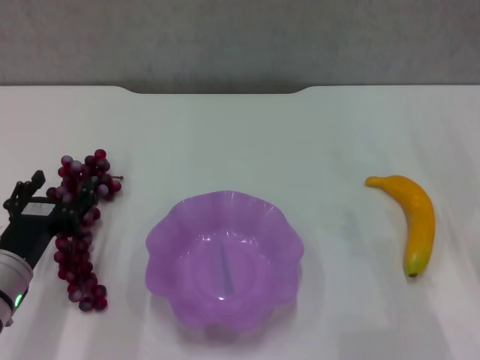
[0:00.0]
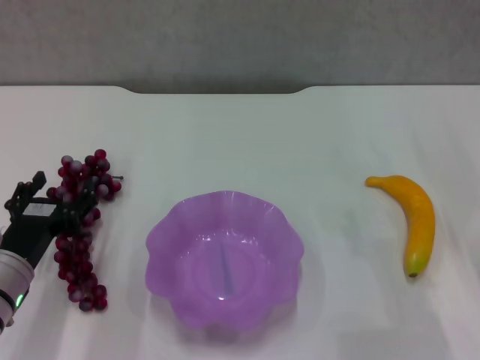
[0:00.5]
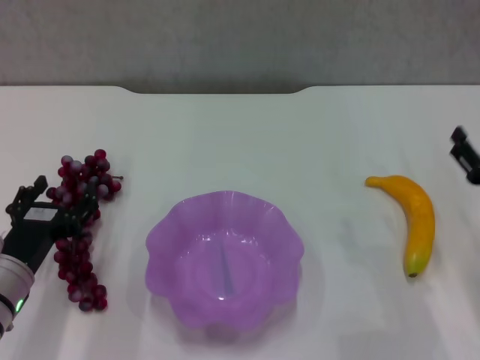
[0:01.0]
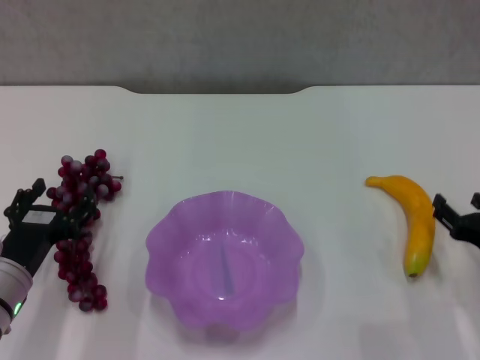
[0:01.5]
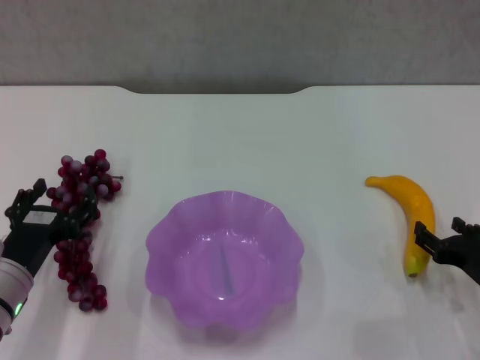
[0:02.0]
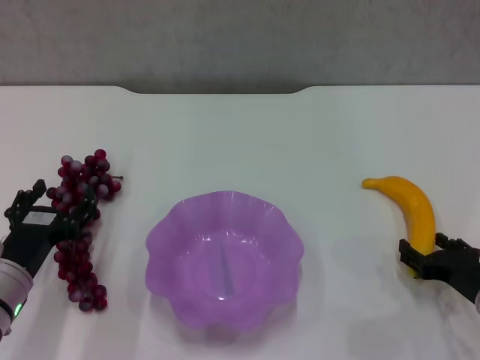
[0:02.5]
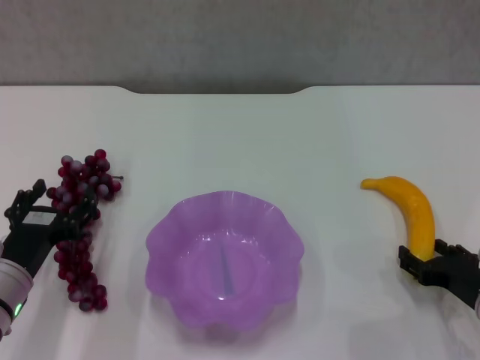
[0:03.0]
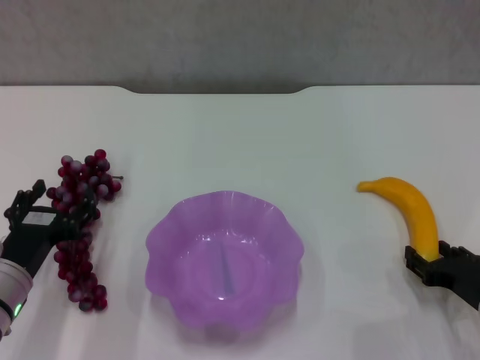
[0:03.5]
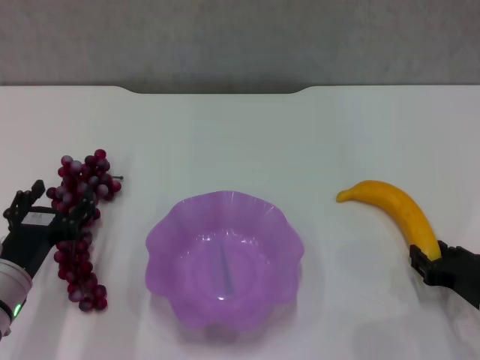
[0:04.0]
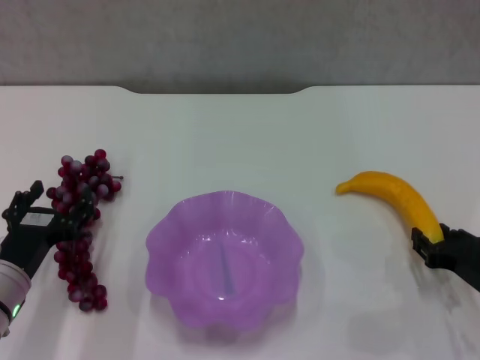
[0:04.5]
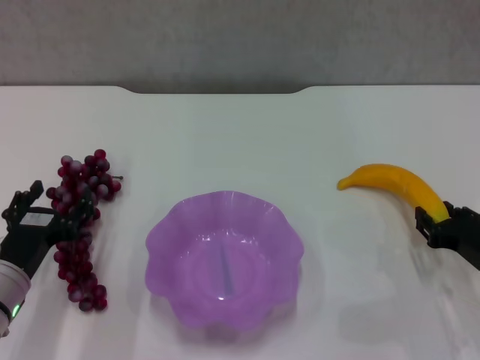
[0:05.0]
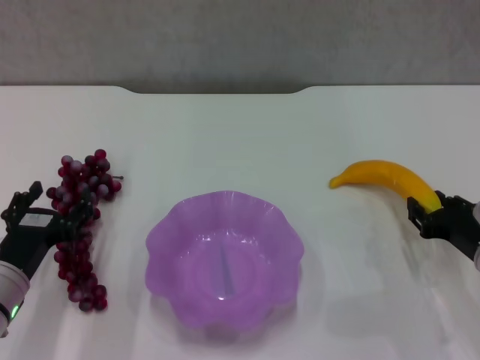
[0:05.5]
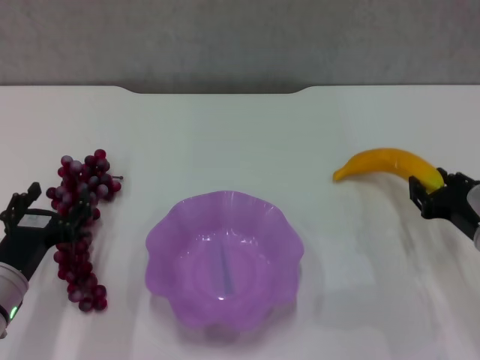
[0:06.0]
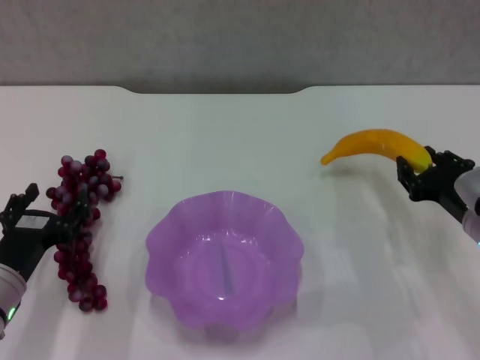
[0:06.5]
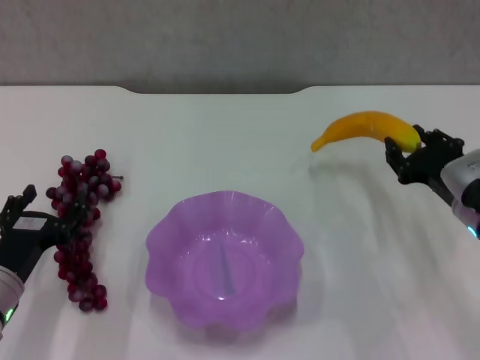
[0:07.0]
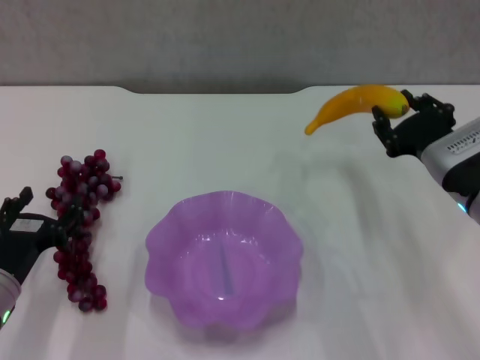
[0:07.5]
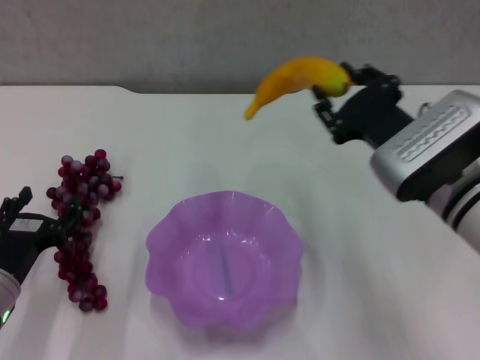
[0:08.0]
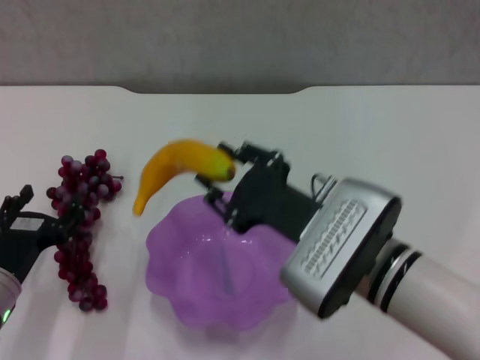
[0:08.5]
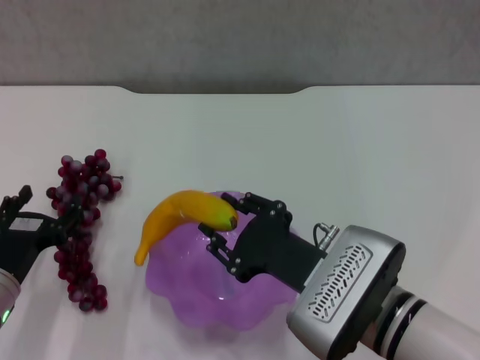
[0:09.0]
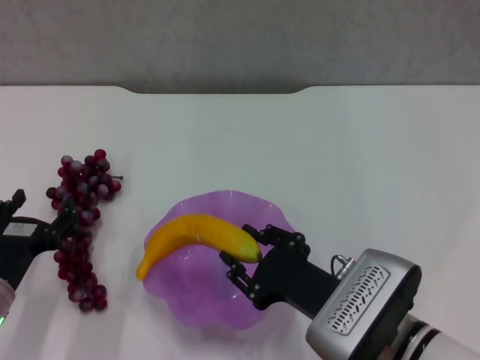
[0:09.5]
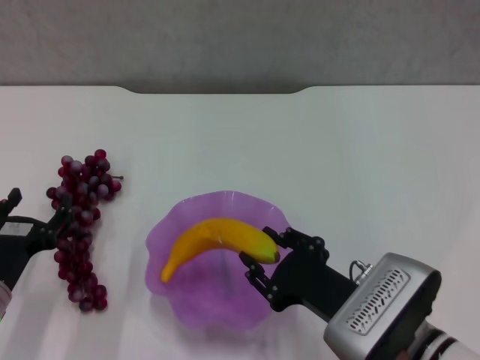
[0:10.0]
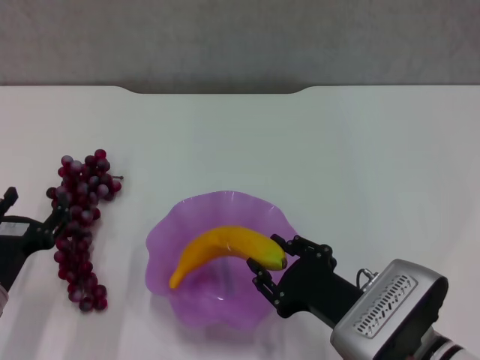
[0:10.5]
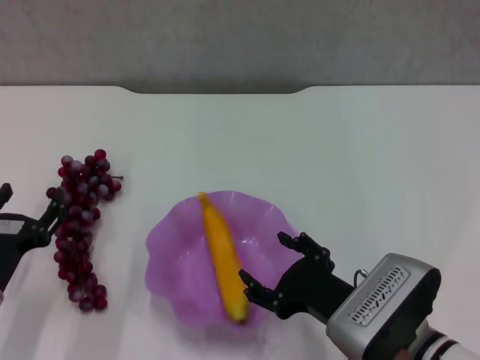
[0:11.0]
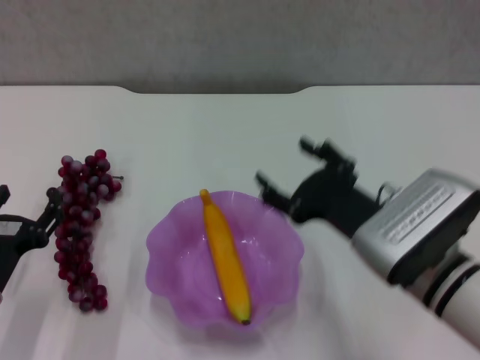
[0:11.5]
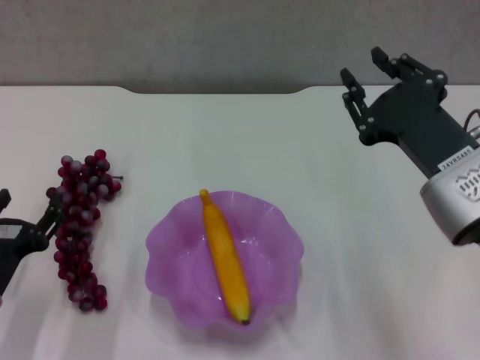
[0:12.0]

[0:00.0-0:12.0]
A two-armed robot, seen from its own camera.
Step, 0:00.0 to 0:03.5: Grasp the banana with right gripper.
Step, 0:04.0 to 0:11.0: Place the banana in the purple plate with right gripper.
0:00.0 to 0:02.0: The right gripper travels downward by approximately 5 cm.
0:02.0 to 0:04.0: There are only small adjustments of the grippers.
0:04.0 to 0:06.0: The right gripper heads forward, covering approximately 5 cm.
0:06.0 to 0:08.0: The right gripper shifts about 15 cm to the left and upward.
0:08.0 to 0:10.0: The right gripper travels backward and downward by approximately 15 cm.
0:10.0 to 0:12.0: The right gripper travels upward, to the right and forward by roughly 15 cm.

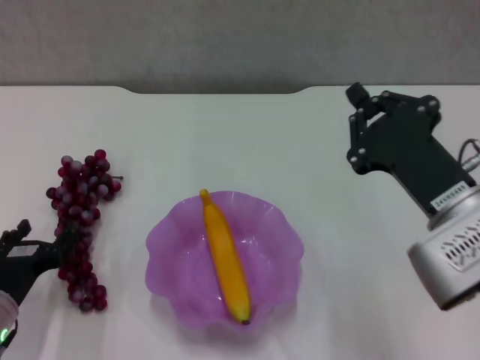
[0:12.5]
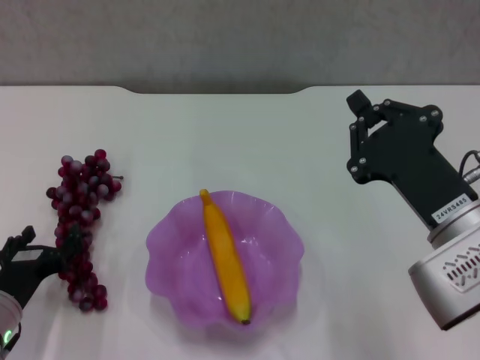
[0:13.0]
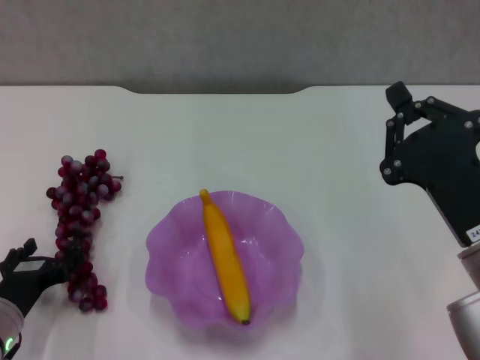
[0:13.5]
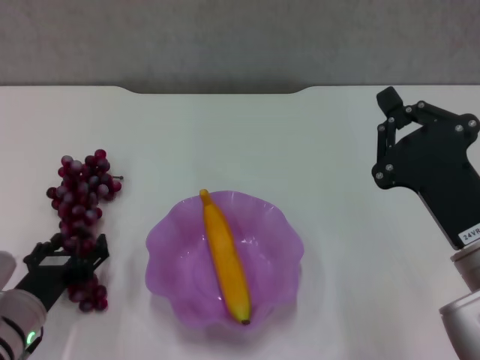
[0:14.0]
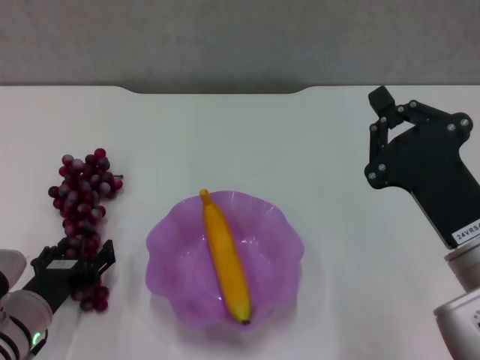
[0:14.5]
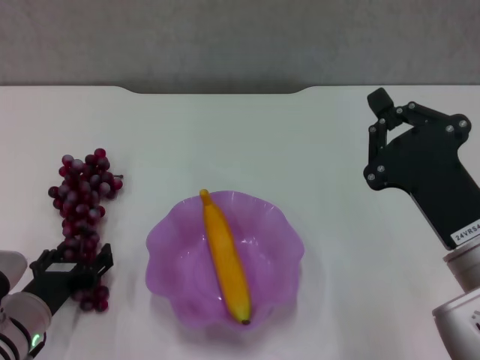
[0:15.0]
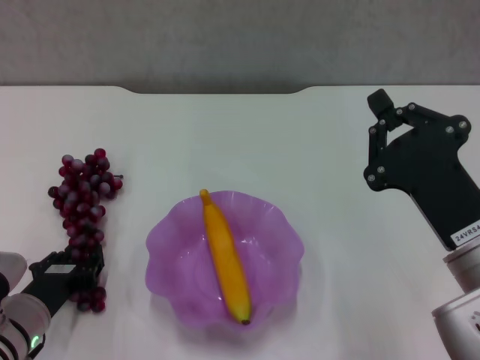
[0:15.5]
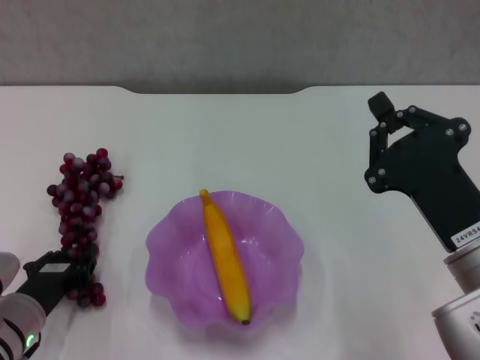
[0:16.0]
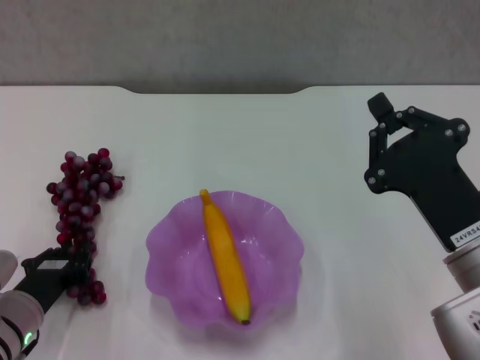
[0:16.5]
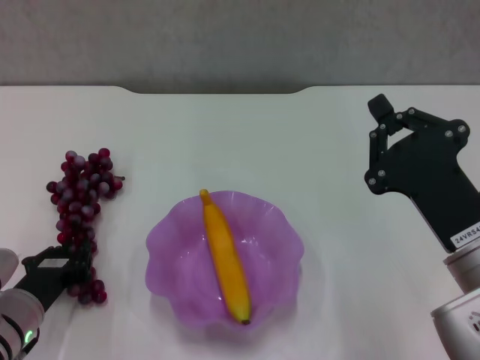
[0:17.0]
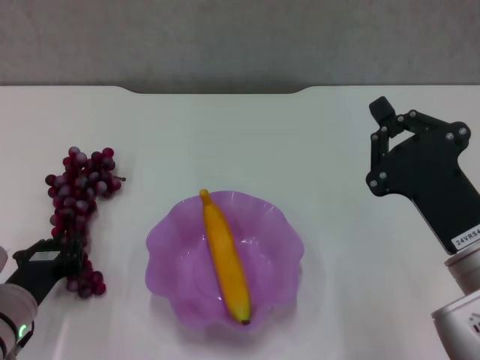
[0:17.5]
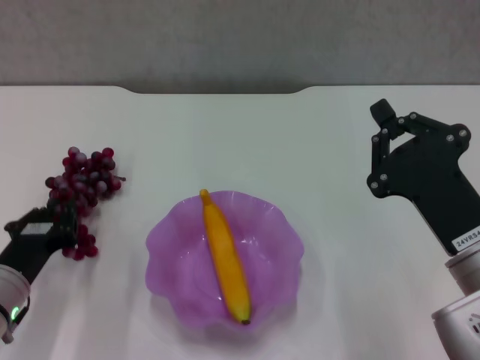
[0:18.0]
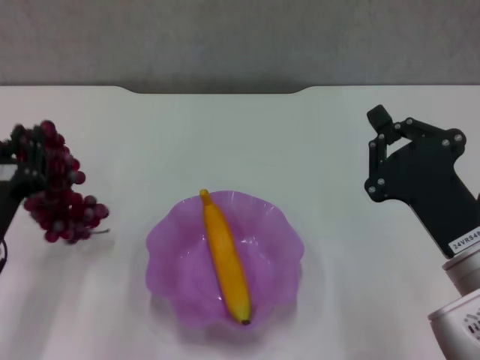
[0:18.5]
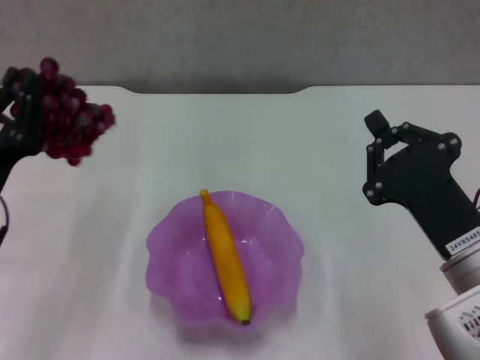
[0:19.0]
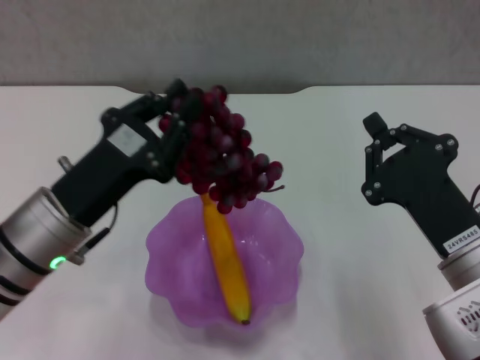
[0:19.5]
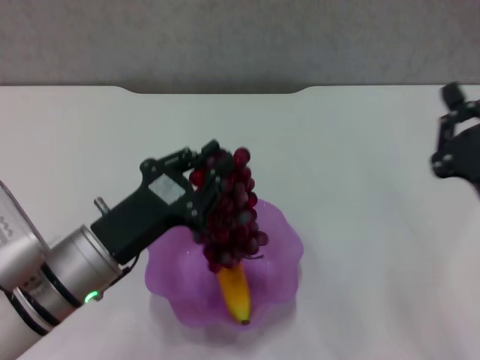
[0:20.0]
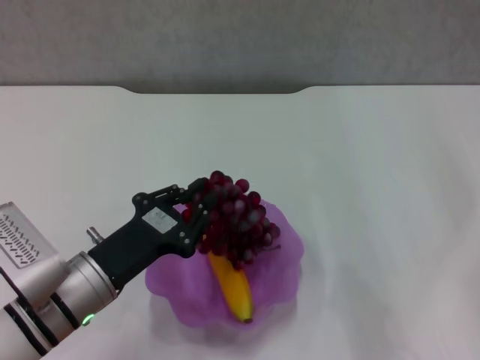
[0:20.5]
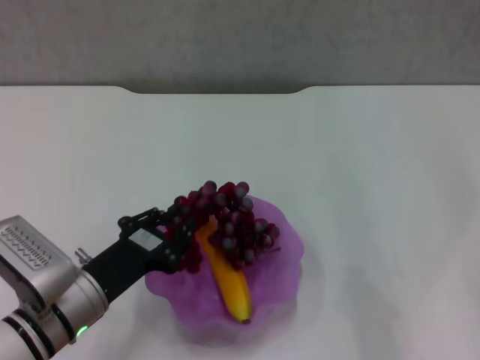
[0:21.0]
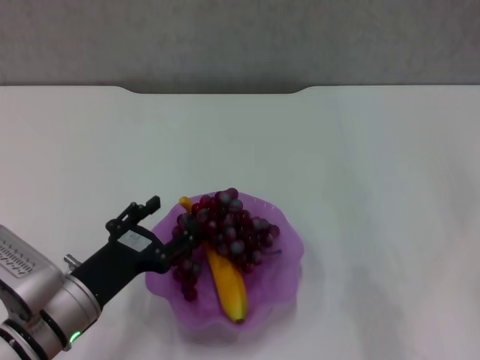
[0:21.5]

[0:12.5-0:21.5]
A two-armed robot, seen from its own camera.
Step, 0:12.5 to 0:17.0: Grasp the grape with left gripper.
Step, 0:17.5 to 0:21.5: Place the grape in the purple plate with left gripper.
0:12.5 to 0:14.5: There are only small adjustments of the grippers.
0:14.5 to 0:17.0: The left gripper closes.
0:17.0 to 0:19.5: The left gripper shifts roughly 15 cm upward and to the right.
0:19.5 to 0:21.5: The left gripper moves downward, approximately 10 cm, and opens its fingers, while the right gripper is displaced to the right by roughly 10 cm.

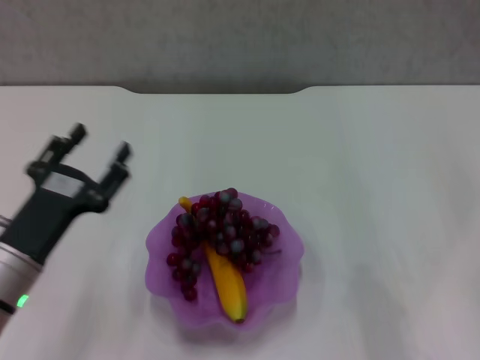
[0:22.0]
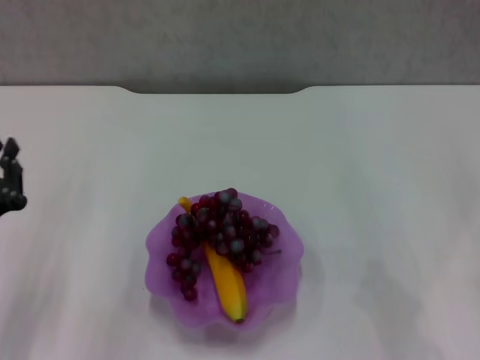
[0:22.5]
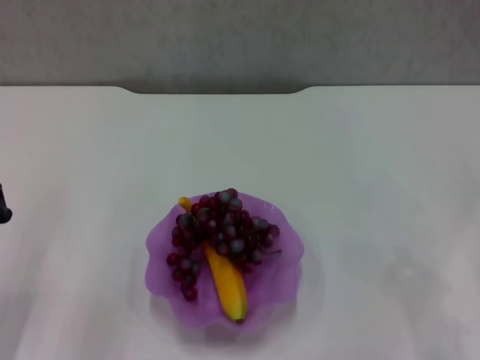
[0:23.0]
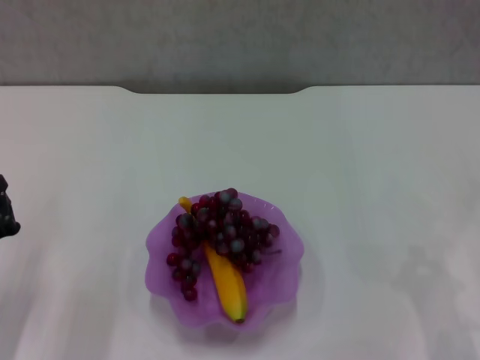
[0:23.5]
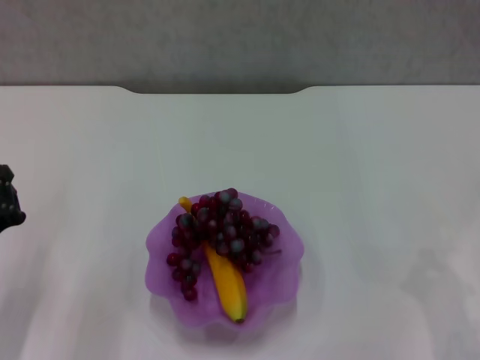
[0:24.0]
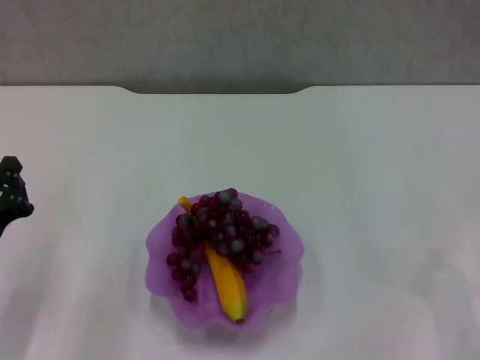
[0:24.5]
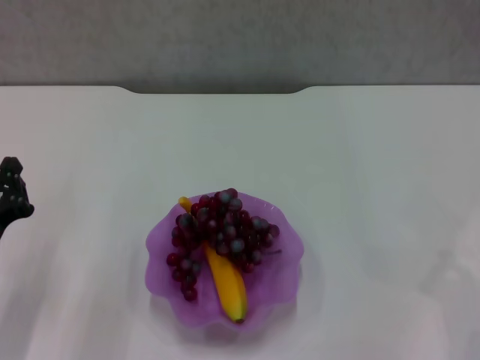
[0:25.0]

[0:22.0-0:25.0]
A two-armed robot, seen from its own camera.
0:22.0 to 0:23.5: The left gripper heads to the left, covering about 5 cm, and closes its fingers.
0:23.5 to 0:25.0: The grippers move only a little.

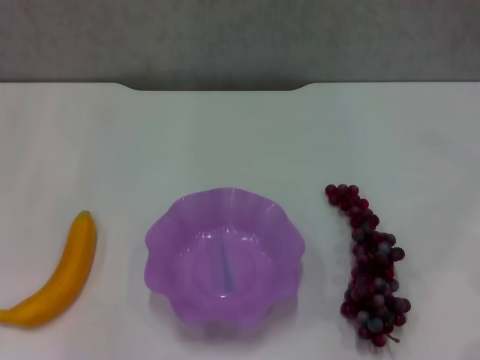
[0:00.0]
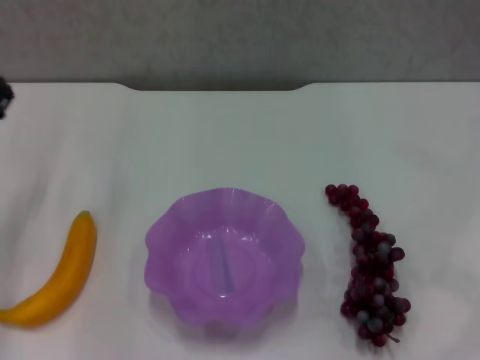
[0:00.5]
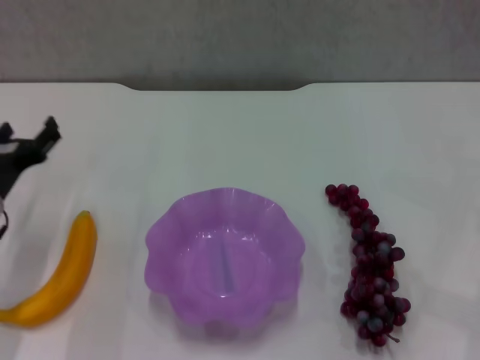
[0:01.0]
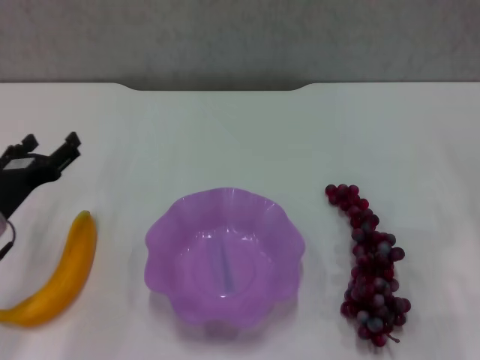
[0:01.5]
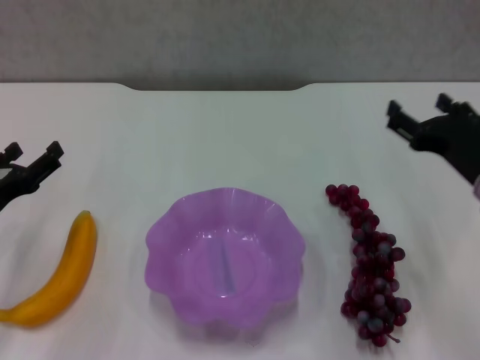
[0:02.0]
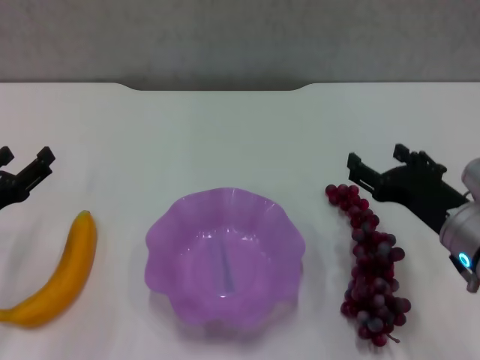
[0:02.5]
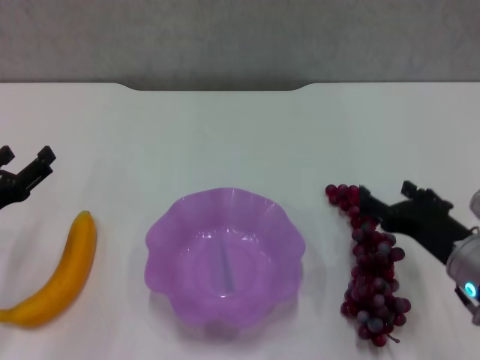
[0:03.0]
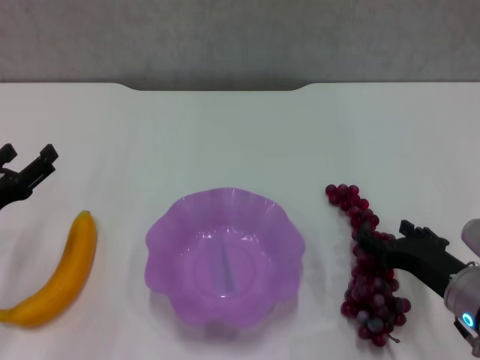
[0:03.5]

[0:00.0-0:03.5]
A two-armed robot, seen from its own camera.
0:00.0 to 0:02.0: The right gripper heads to the left, covering some 30 cm, while the left gripper goes roughly 15 cm backward and downward.
0:02.0 to 0:03.5: The right gripper goes approximately 10 cm downward and backward.
